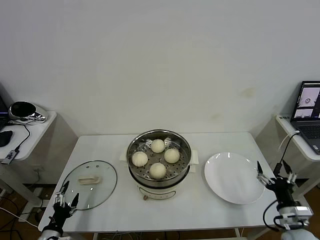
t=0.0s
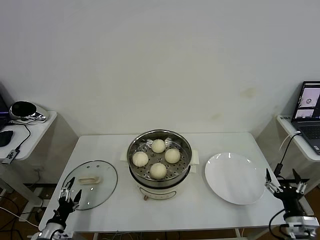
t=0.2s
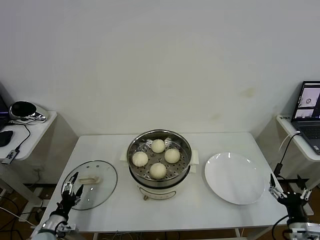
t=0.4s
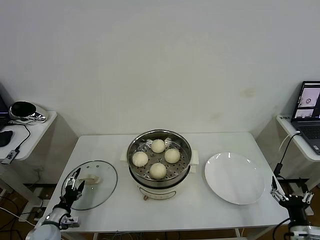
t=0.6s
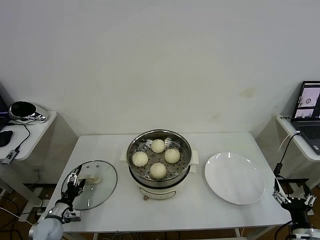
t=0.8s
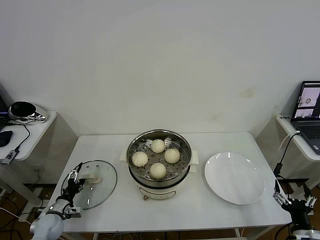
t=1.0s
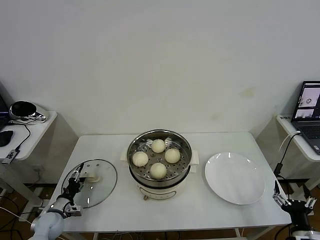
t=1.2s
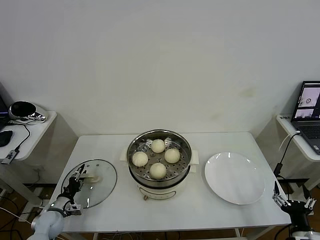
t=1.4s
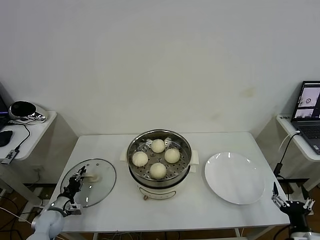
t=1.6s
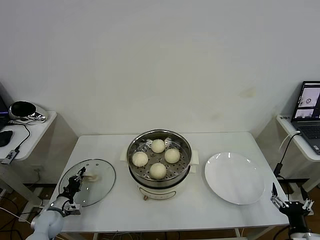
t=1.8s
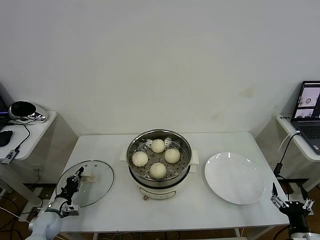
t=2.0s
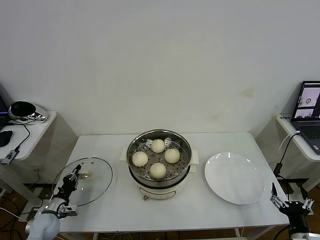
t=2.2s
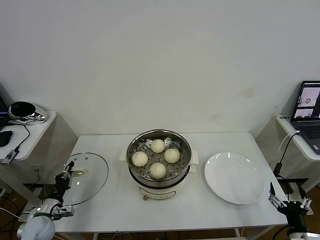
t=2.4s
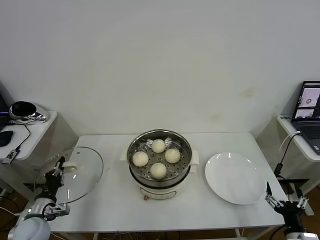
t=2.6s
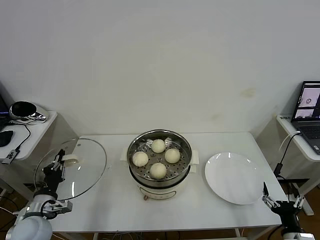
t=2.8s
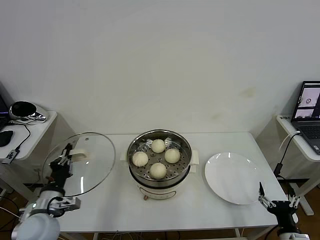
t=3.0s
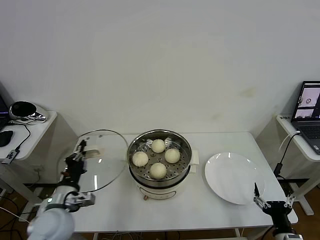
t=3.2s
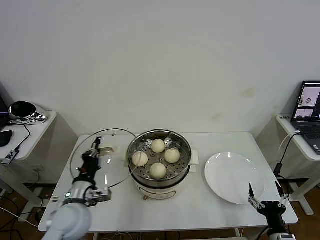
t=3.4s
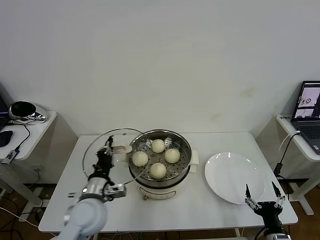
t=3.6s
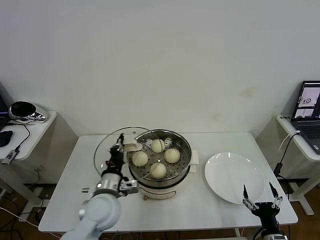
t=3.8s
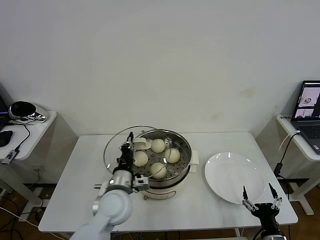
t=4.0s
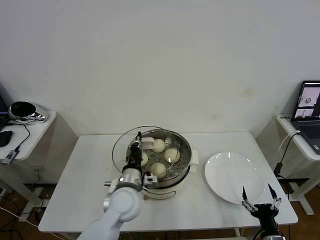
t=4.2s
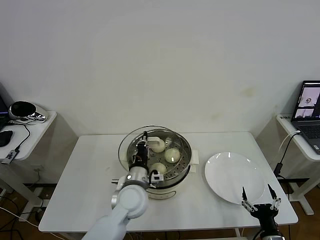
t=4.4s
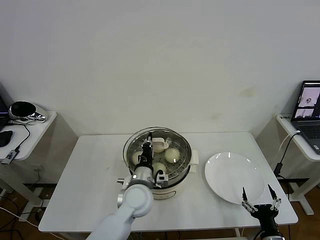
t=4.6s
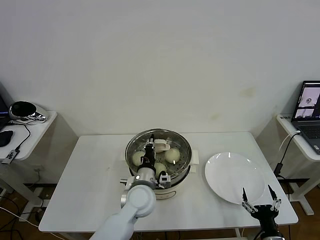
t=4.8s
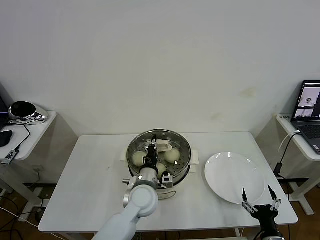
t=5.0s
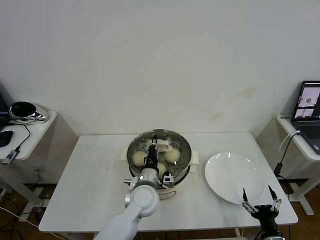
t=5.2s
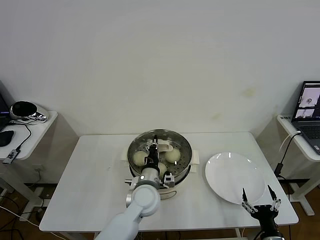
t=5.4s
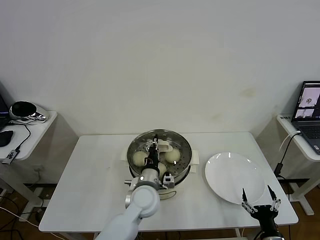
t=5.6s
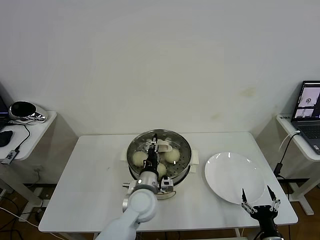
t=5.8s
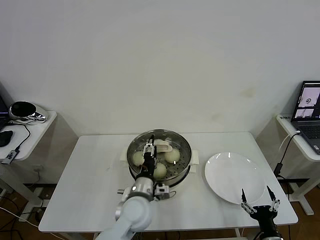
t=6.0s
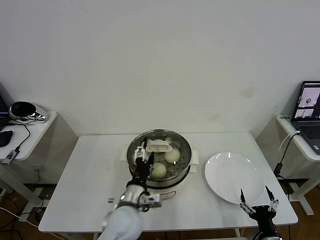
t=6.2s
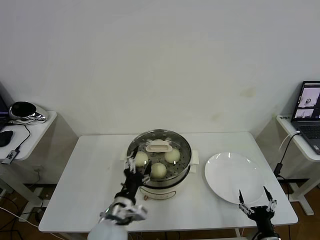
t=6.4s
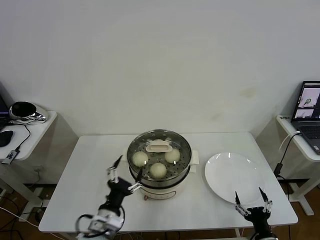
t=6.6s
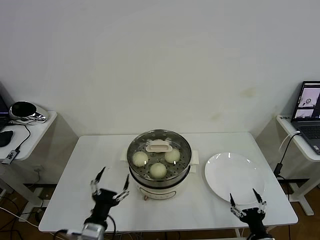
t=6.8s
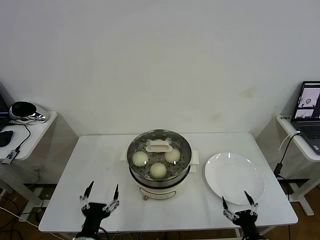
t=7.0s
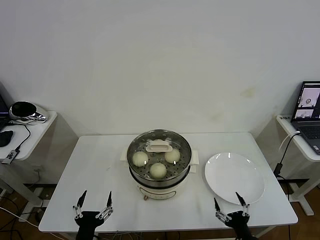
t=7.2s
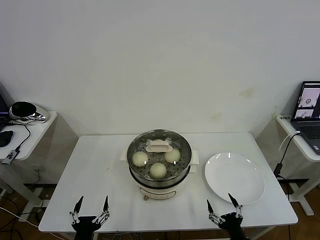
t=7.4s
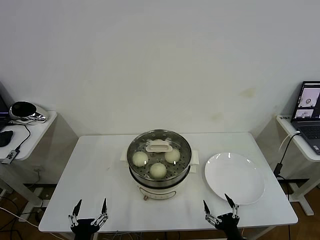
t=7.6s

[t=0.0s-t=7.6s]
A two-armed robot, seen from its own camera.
Task of the whole recording: take steamed baozi put them in steamer then cover it.
Step, t=0.0s to t=1.8s: Grasp the pot lid with left gripper.
Step, t=2.0s to t=6.0s: Place the pot lid on the steamer with left gripper.
t=0.0s to t=1.6s: The right gripper shifts roughly 5 cm backward. The left gripper is displaced forward by some 15 cm, and closes.
t=1.6s to t=3.0s: The left gripper heads upward, to the right and backward, covering some 20 cm.
t=3.0s to t=4.6s: The left gripper moves to the right, roughly 25 cm.
t=4.6s to t=6.0s: The left gripper opens its fingers.
t=6.0s to t=7.6s: The right gripper moves to the left, roughly 5 cm, while the left gripper goes roughly 25 cm backward and to the left.
